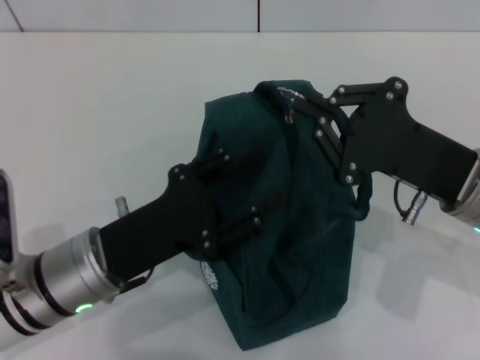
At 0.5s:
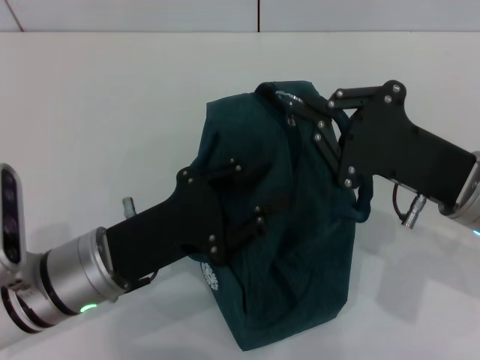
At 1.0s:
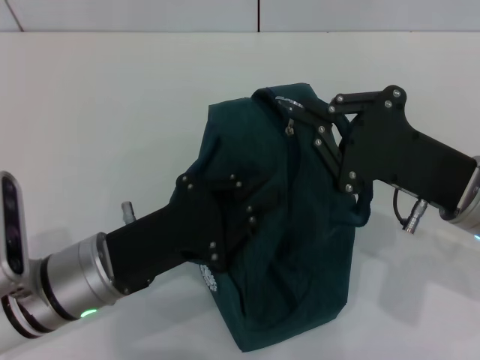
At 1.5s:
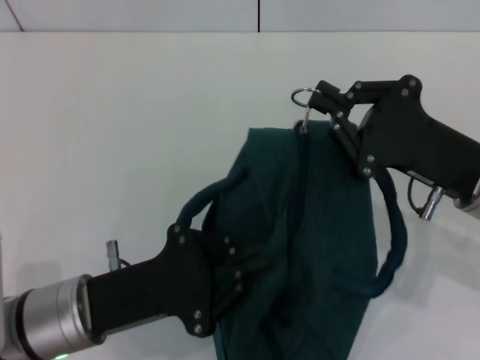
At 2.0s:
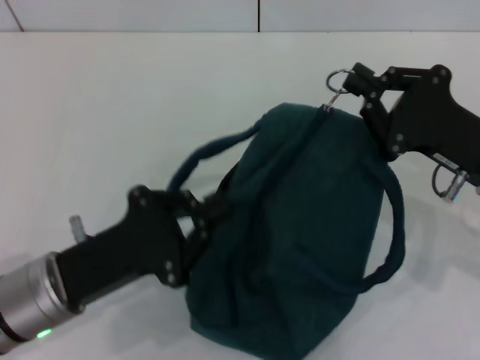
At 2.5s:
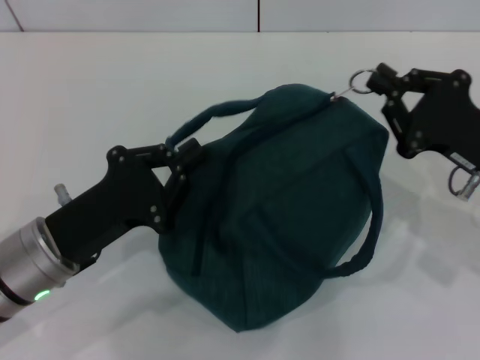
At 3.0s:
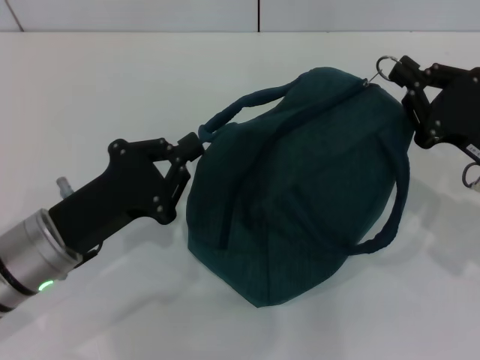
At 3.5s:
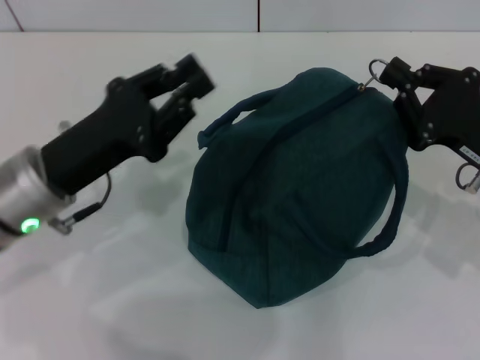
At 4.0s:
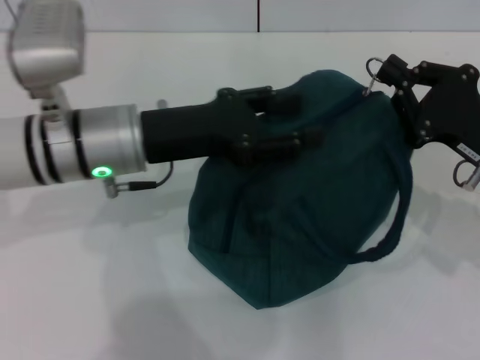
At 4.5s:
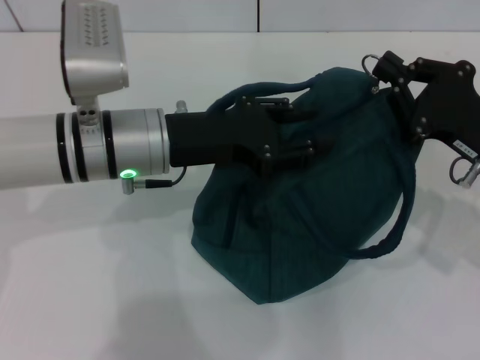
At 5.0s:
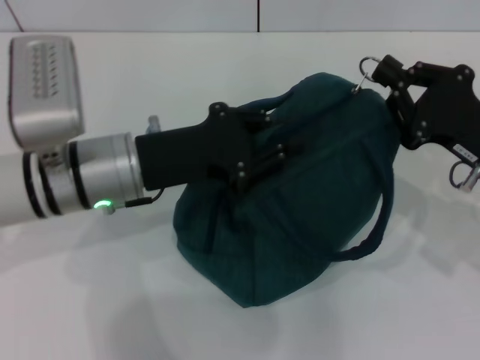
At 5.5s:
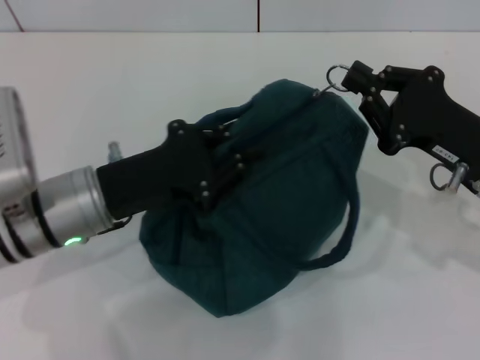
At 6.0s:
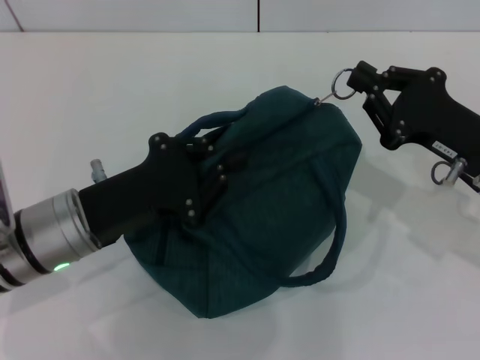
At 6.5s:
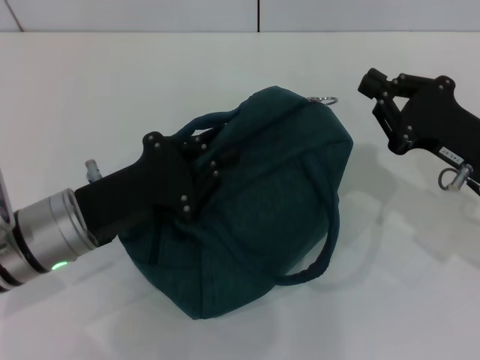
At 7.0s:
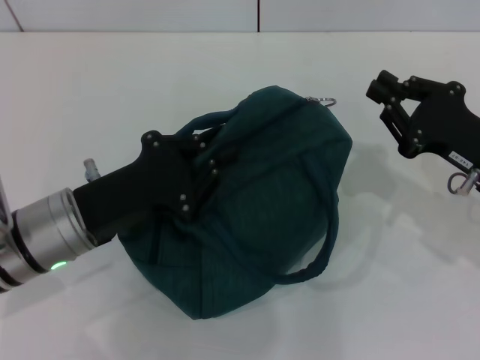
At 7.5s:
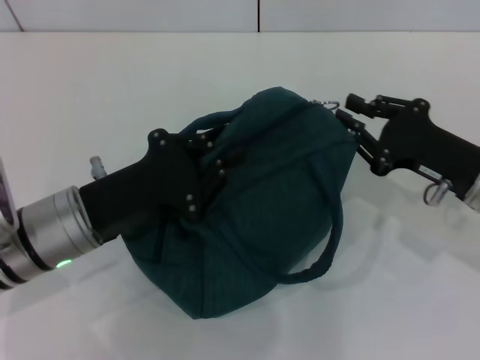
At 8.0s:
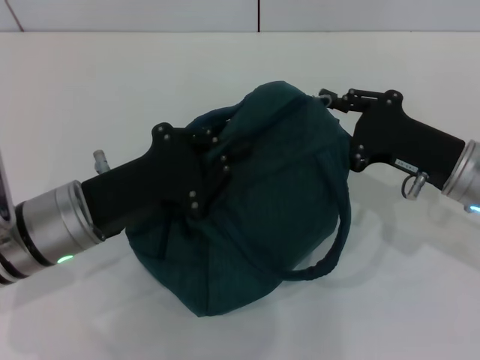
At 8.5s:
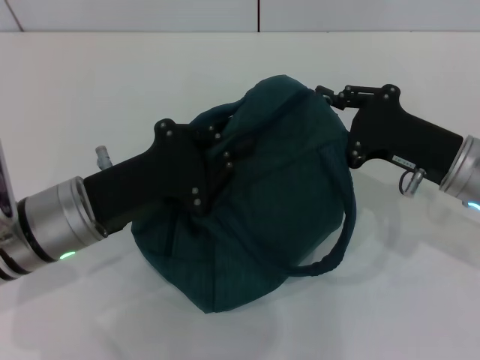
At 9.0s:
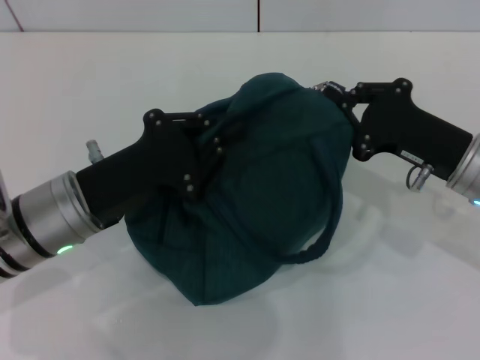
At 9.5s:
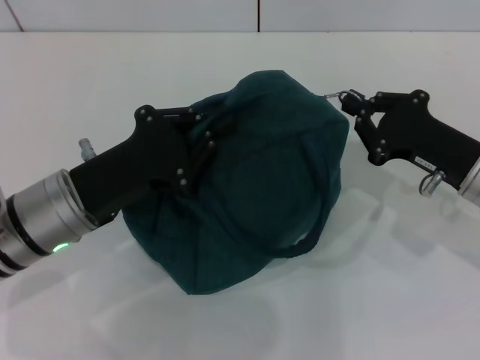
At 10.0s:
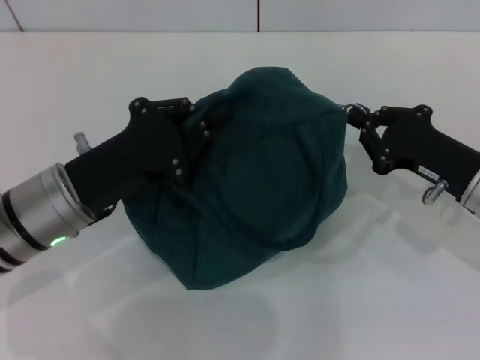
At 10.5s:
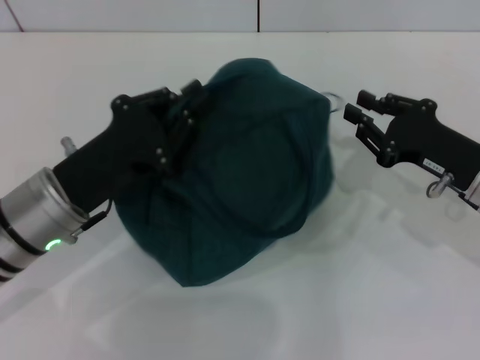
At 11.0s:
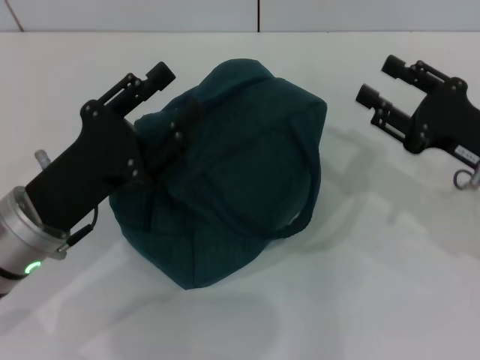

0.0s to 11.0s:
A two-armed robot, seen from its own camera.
Step, 0.0s to 10.0s: Zip up the lunch bag with your right hand.
0.0s to 2.0s: The left gripper closes up.
2.0s to 3.5s: The left gripper is displaced forward by roughly 5 cm.
3.5s to 5.5s: The left gripper reaches roughly 10 cm to the right, then returns, and opens, then closes once more.
5.5s to 9.0s: The grippers make only small movements.
9.0s to 11.0s: The right gripper opens its fingers.

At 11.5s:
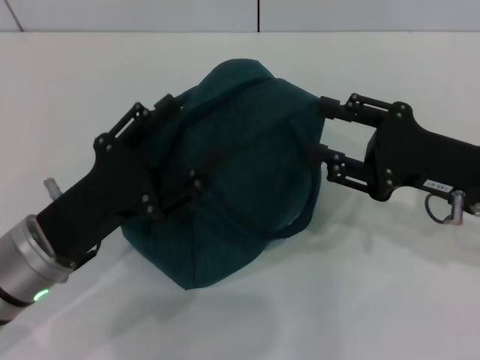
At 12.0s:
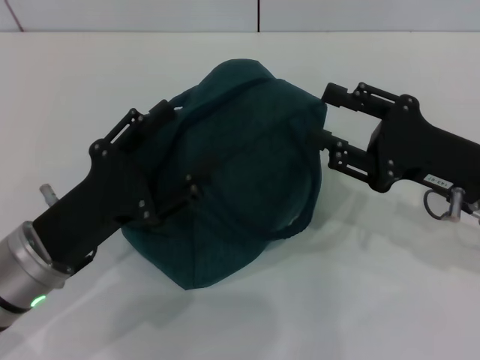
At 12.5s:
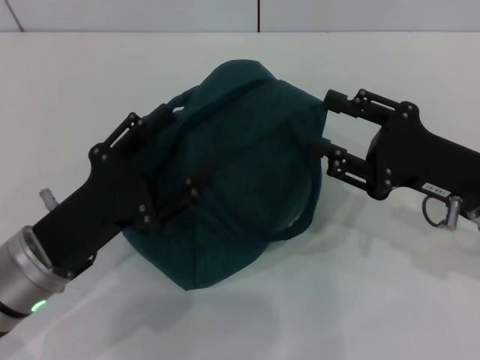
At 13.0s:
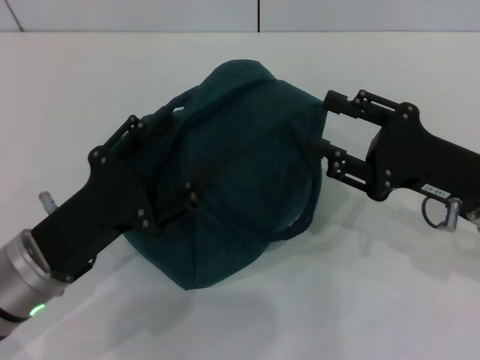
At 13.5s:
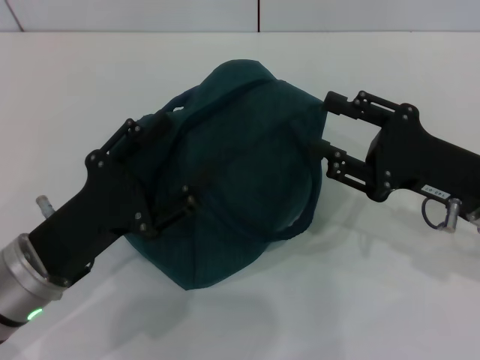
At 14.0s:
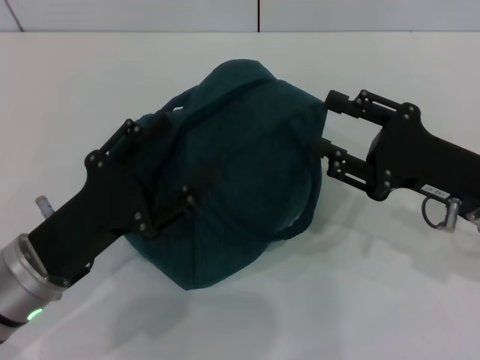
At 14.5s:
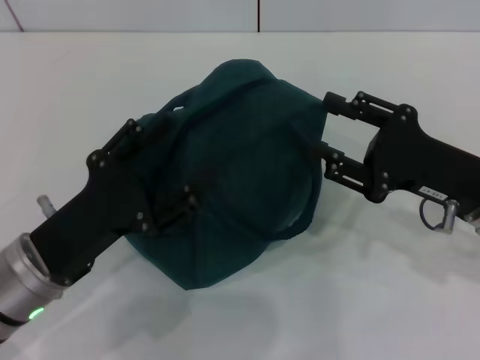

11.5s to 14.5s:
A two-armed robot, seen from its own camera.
11.5s to 13.0s: The grippers make only small movements.
13.0s to 14.5s: Both grippers stay about where they are.

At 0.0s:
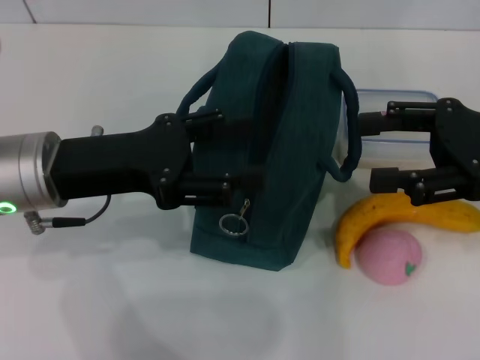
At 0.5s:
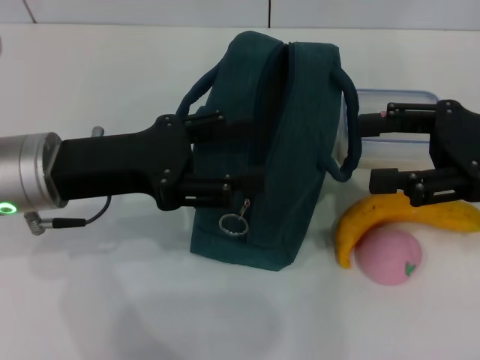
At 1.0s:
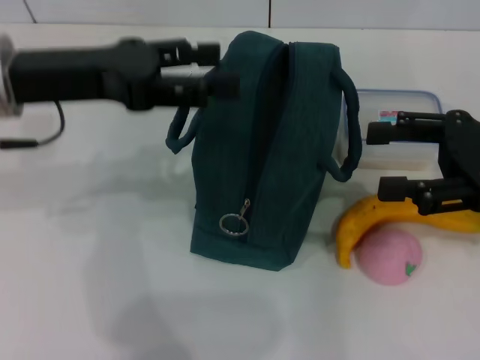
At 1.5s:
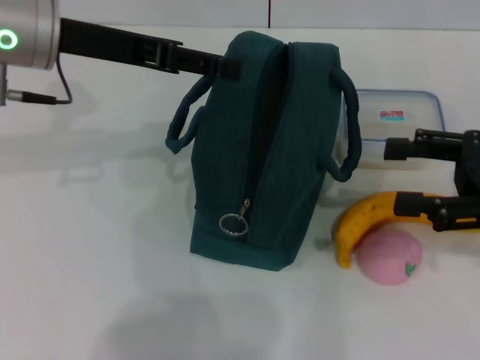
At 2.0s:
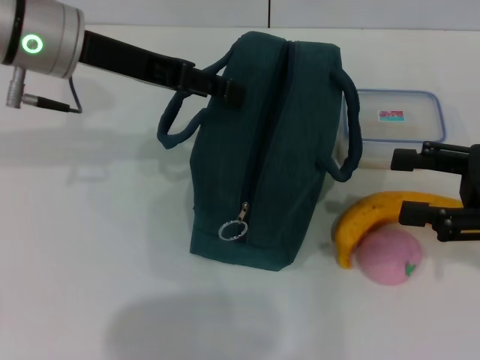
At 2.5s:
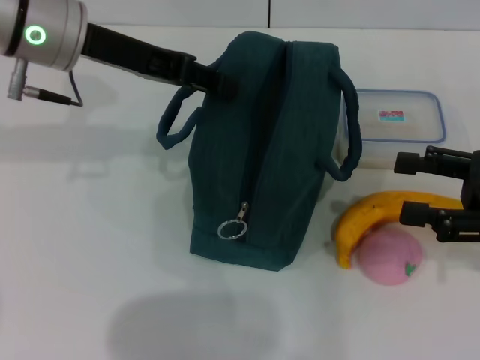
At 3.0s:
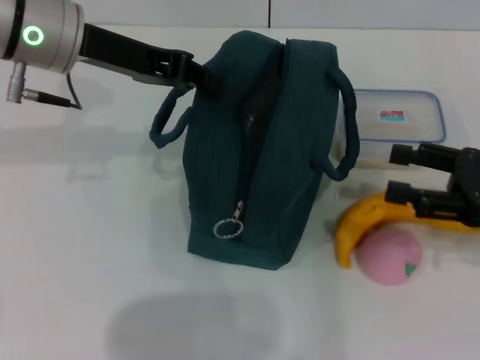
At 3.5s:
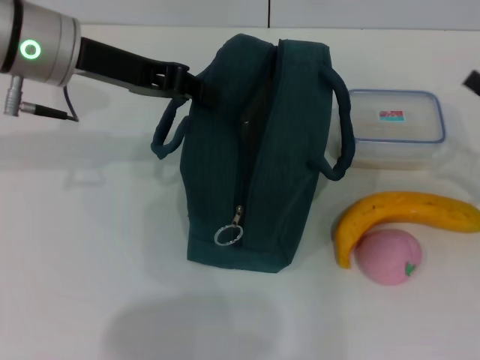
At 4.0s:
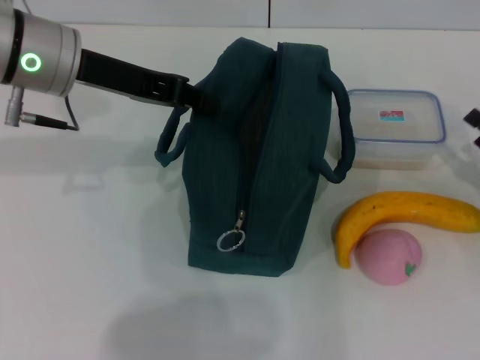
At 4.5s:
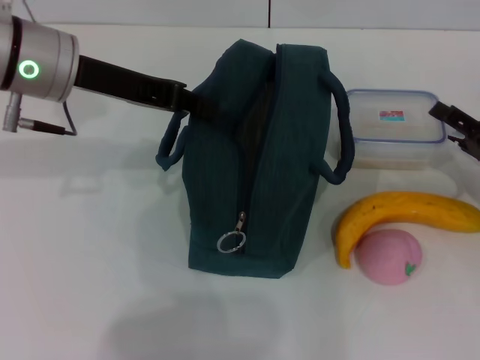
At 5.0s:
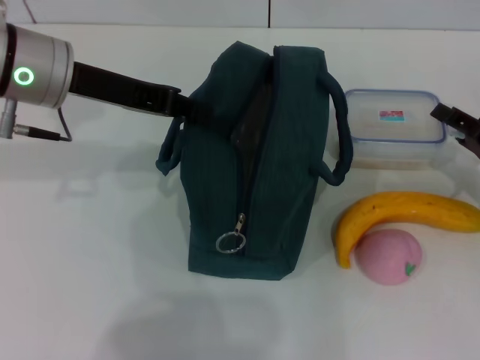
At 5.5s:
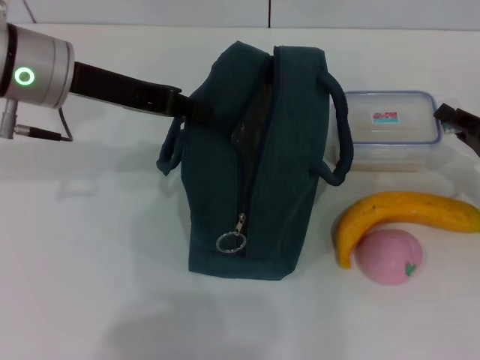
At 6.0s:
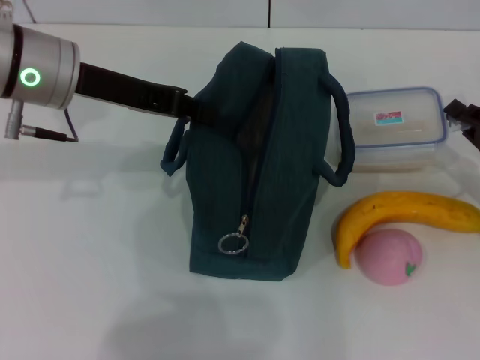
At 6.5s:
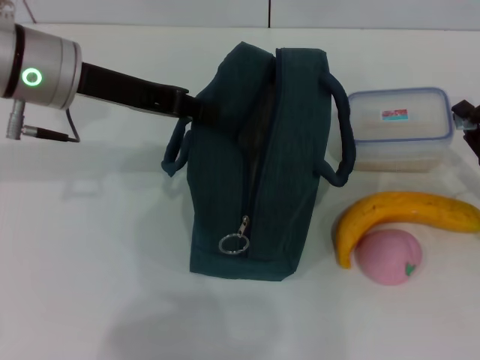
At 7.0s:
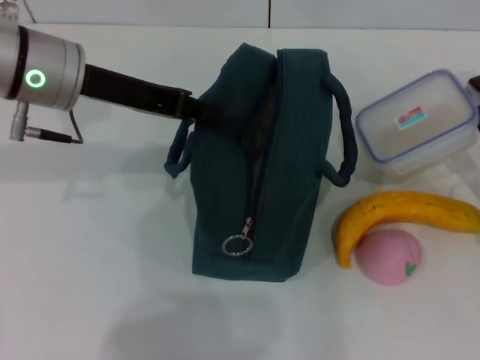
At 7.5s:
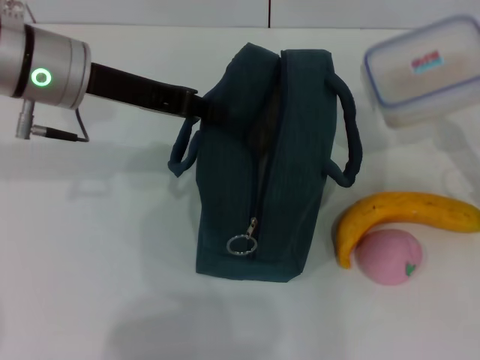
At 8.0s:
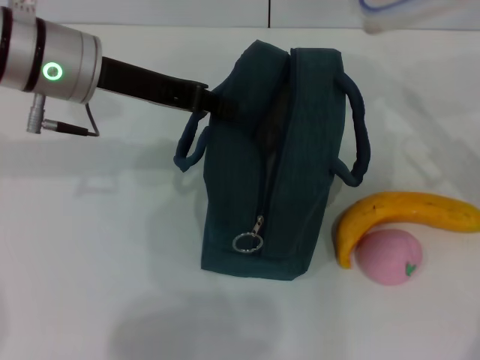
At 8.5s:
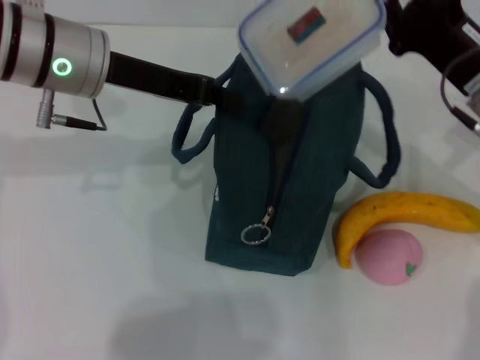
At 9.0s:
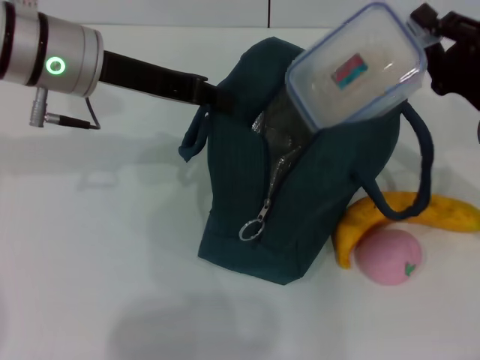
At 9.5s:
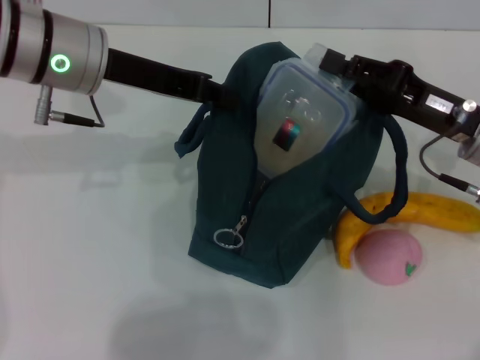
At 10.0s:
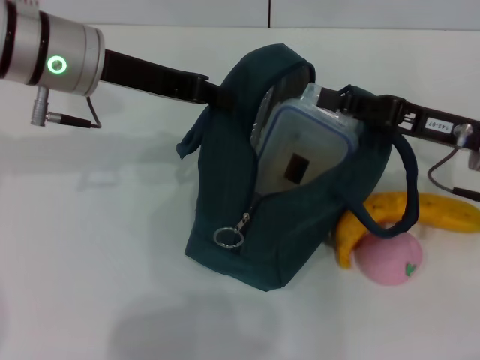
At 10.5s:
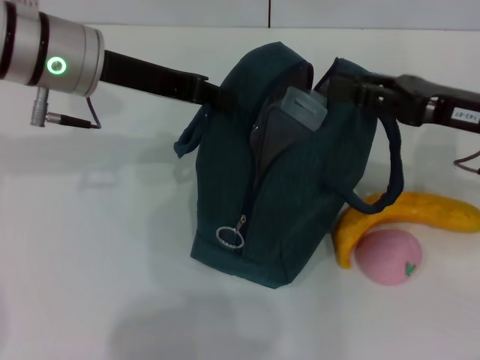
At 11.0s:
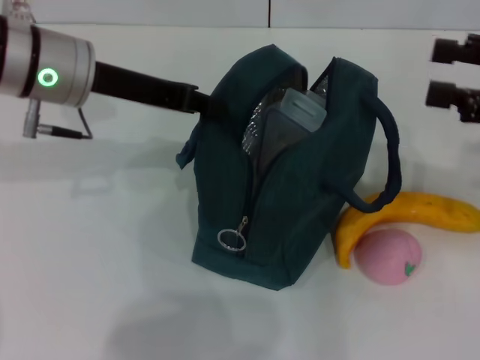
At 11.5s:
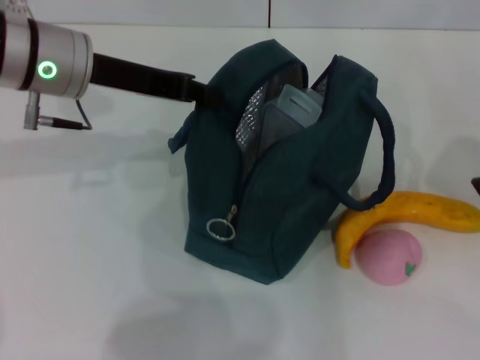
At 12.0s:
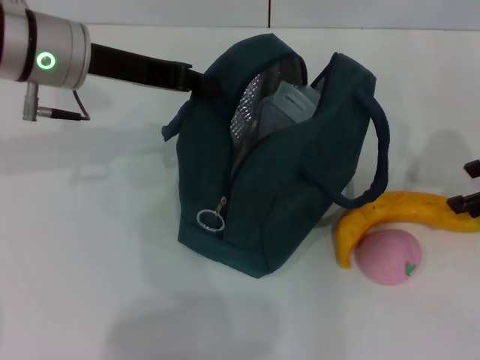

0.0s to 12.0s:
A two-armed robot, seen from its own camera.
Step, 0.0s to 4.0s: Hold the lunch bag with your left hand.
Step, 4.5s to 5.0s: Pick up the lunch box with your right hand.
Step, 5.5s to 10.5s: Place the lunch box into the lunch bag with your right hand.
0.0s to 2.0s: The left gripper goes some 10 cm forward and upward. Meanwhile the right gripper moves some 5 cm.
2.0s to 4.0s: The right gripper shifts roughly 10 cm downward. The left gripper closes up.
4.0s to 6.0s: The right gripper closes its fingers.
6.0s to 8.0s: The right gripper goes approximately 10 cm upward.
8.0s to 10.0s: The right gripper moves left and right over roughly 5 cm, changing direction 2 times.
10.0s to 12.0s: The right gripper heads to the right and upward, covering about 10 cm, and opens up.
